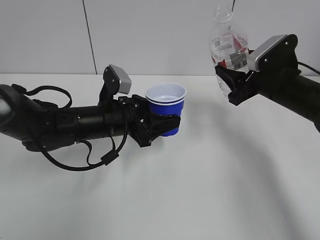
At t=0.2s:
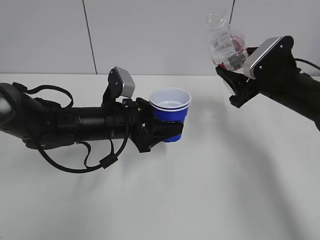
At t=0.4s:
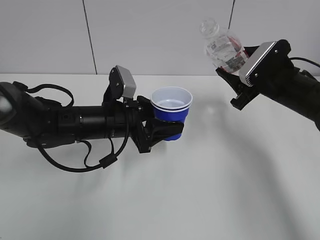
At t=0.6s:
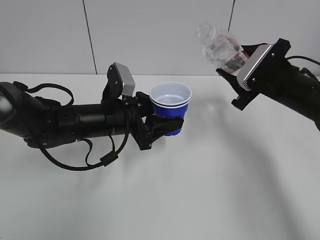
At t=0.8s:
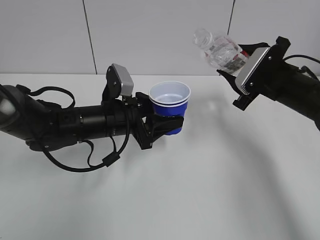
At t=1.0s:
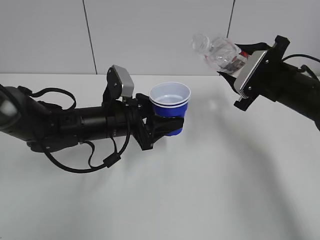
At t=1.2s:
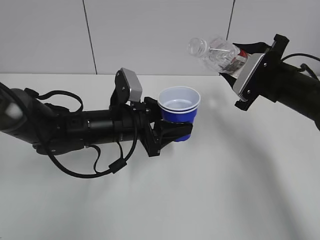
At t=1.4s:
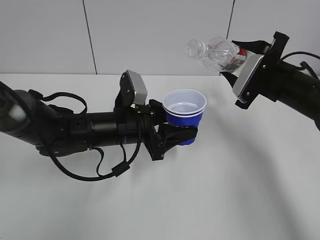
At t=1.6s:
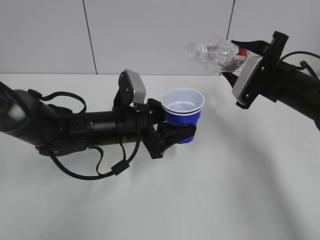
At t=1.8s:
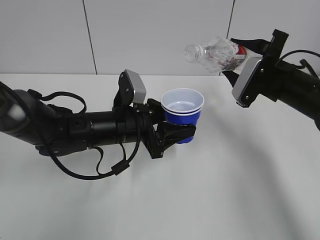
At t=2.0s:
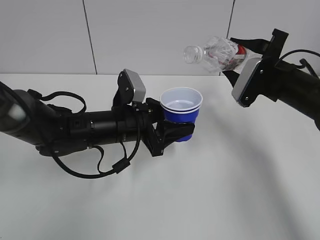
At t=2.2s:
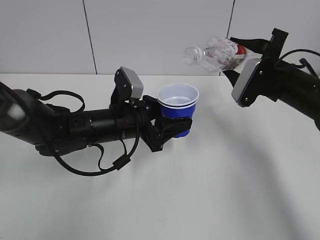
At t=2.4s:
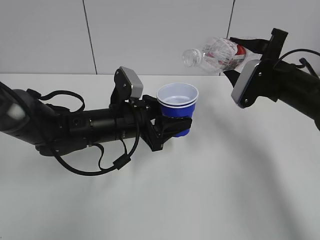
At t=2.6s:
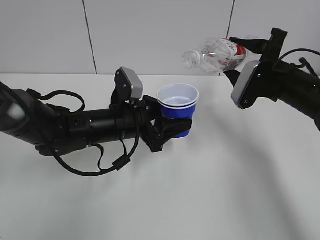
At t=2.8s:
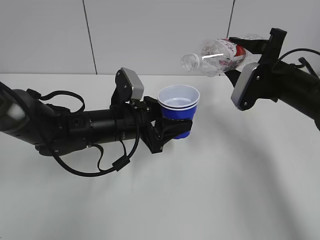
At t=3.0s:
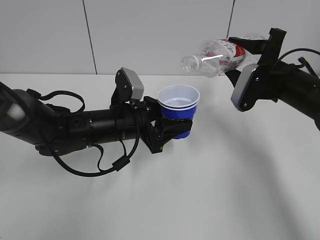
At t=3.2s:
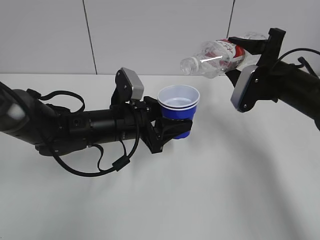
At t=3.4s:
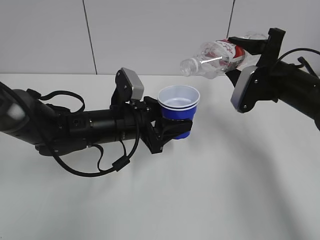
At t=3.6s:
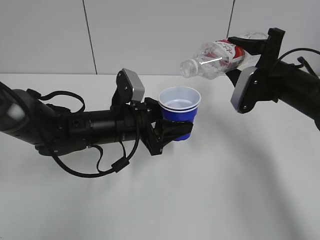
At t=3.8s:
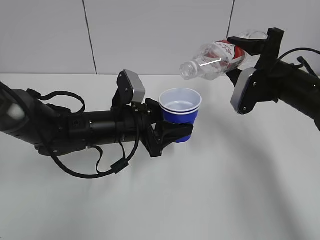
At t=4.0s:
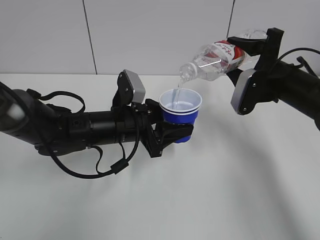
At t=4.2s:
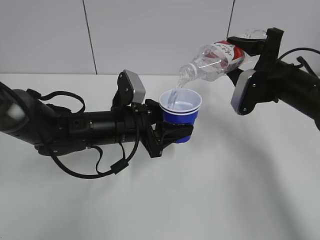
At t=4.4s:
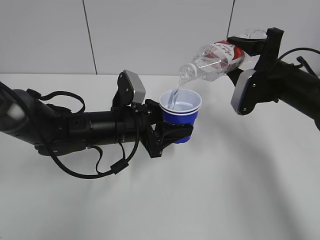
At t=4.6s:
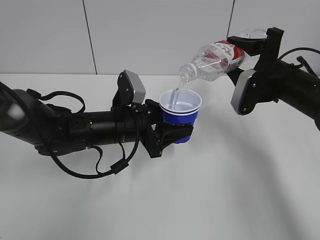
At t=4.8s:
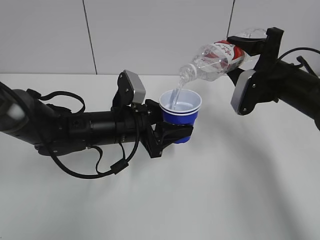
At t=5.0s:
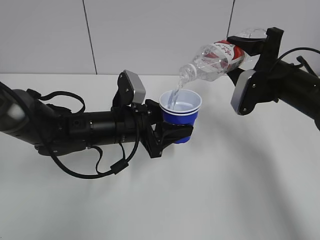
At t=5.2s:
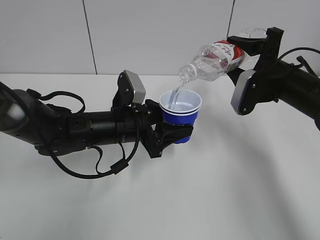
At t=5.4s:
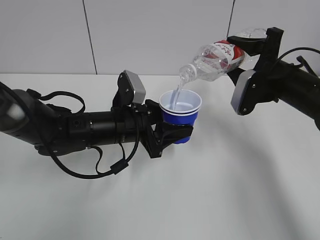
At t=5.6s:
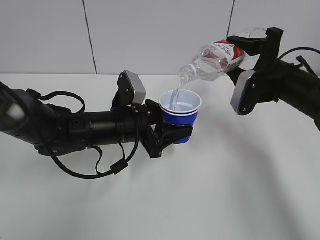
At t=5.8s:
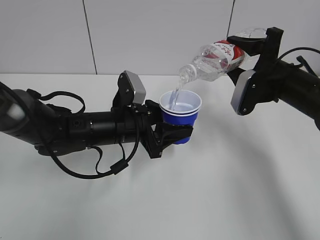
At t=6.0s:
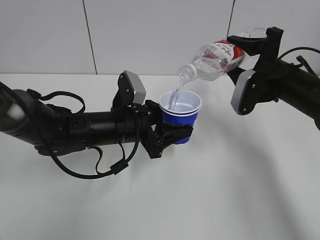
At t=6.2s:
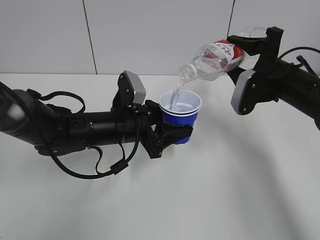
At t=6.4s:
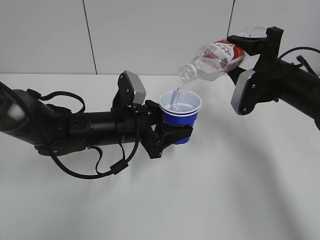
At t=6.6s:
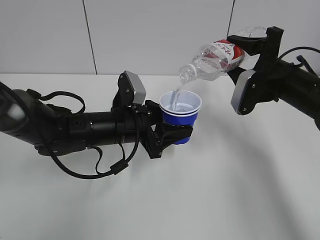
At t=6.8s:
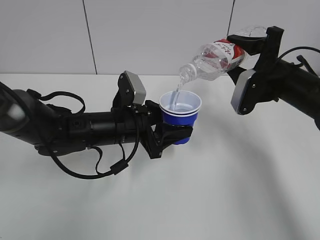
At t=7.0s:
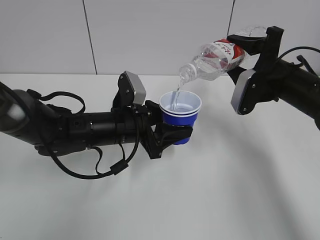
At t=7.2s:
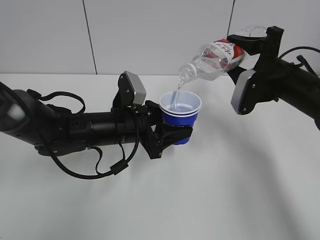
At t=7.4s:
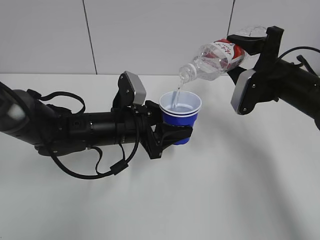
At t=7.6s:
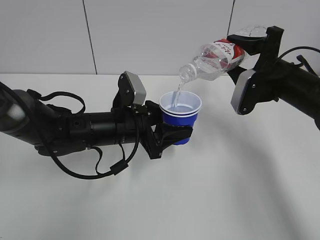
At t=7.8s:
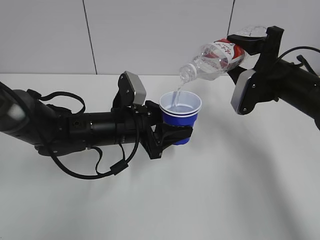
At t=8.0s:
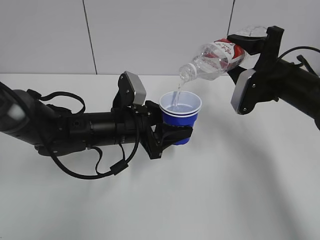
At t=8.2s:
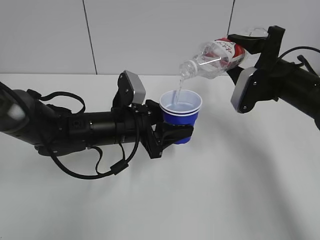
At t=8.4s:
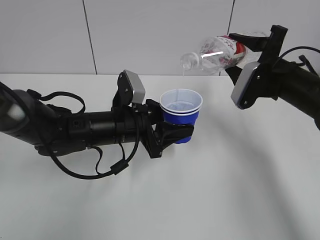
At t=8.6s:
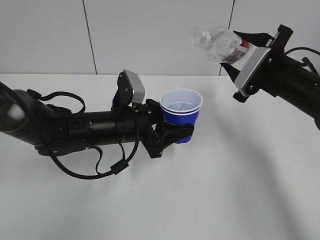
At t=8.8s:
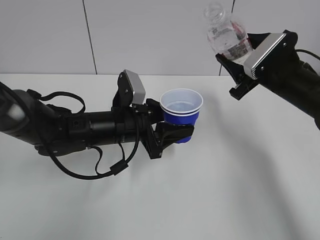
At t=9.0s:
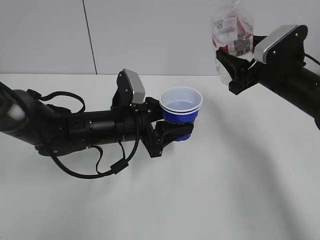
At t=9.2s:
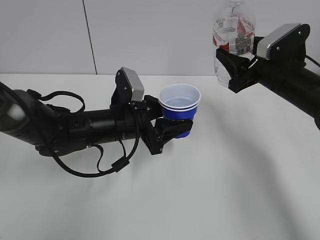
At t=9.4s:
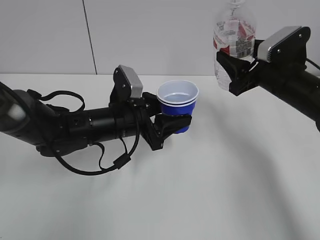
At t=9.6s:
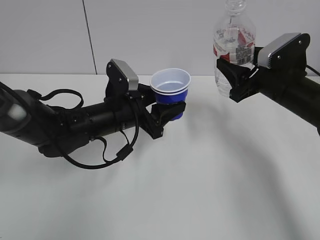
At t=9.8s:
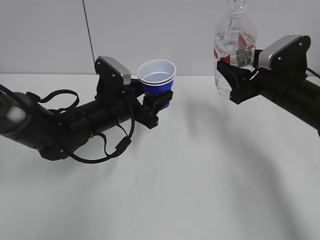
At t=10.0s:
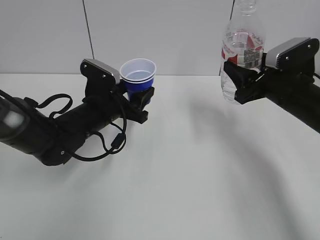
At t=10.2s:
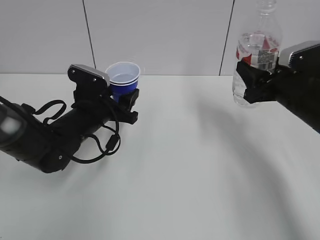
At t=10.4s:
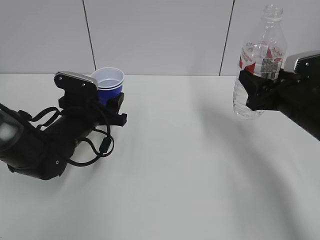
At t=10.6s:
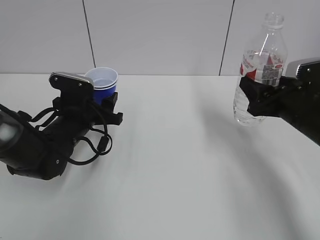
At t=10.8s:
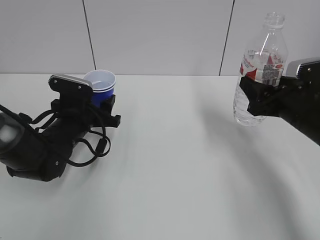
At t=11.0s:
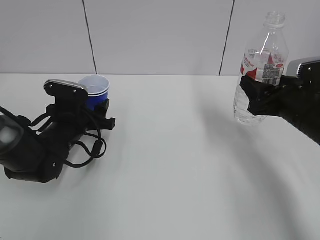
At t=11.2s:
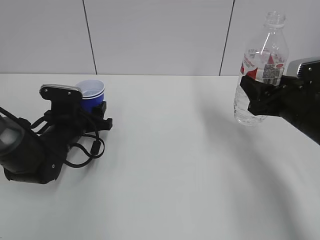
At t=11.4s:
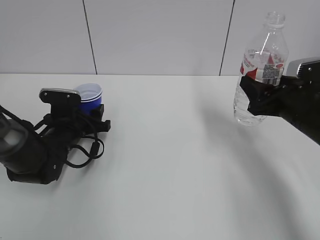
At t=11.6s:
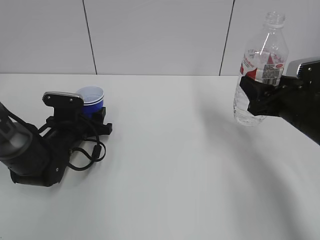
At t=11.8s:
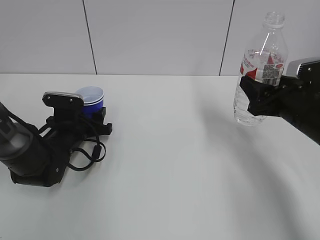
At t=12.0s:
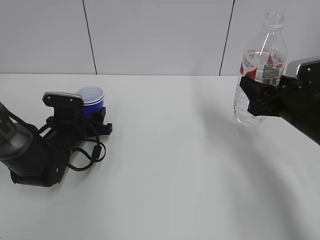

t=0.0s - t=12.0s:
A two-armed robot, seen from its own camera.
Step, t=0.0s - t=3.2s: Lift the paper cup with the left hand.
Step, t=3.4s - t=8.6s: Fill water with the left hand.
Step, t=3.4s - t=8.6s: Pour water with the right hand.
Step, t=8.8s - t=9.0s: Collect water with the right hand.
t=1.6s - t=3.0s: The grippers move only a little.
t=3.0s - t=4.4s: The grippers stay close to where they were, moving slightly.
t=4.4s - t=7.6s: The two grippers keep their place.
t=9.0s - t=10.4s: The left gripper heads to the left, covering roughly 10 cm. Meanwhile the right gripper changes place by about 5 cm.
t=10.4s - t=12.0s: The left gripper goes approximately 5 cm downward.

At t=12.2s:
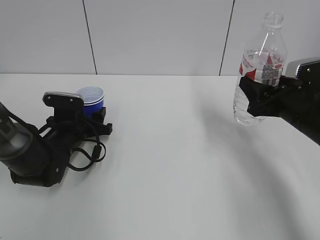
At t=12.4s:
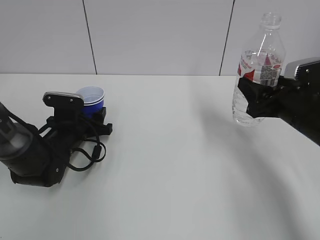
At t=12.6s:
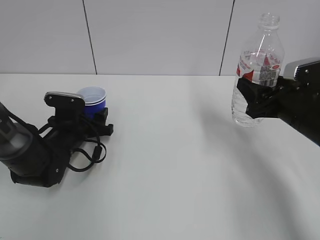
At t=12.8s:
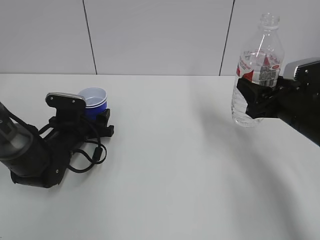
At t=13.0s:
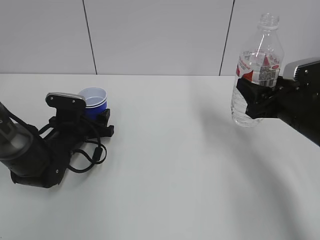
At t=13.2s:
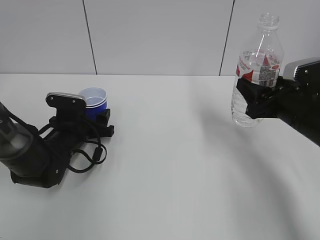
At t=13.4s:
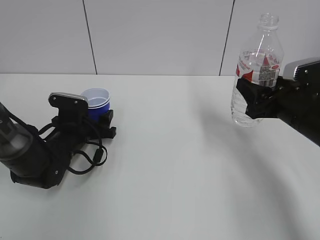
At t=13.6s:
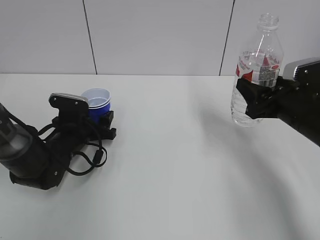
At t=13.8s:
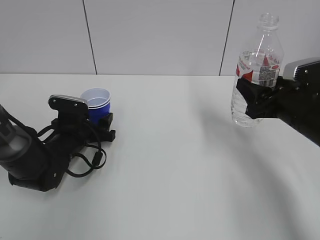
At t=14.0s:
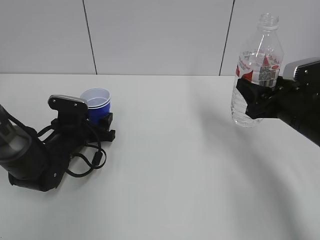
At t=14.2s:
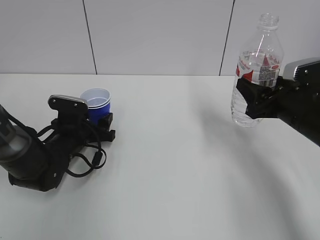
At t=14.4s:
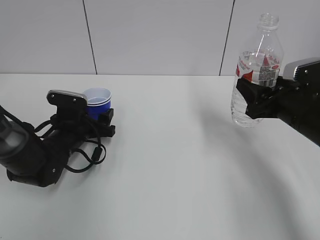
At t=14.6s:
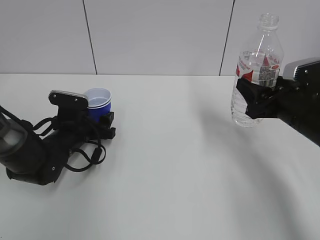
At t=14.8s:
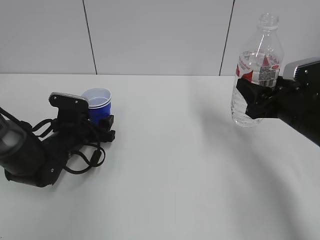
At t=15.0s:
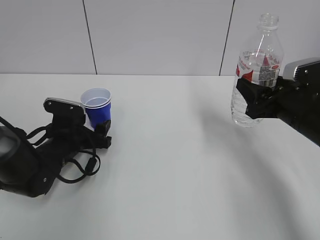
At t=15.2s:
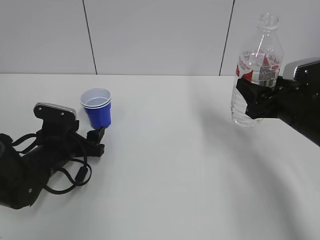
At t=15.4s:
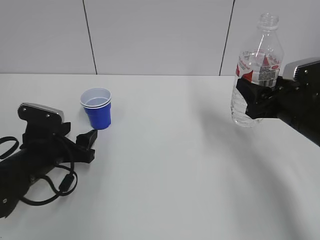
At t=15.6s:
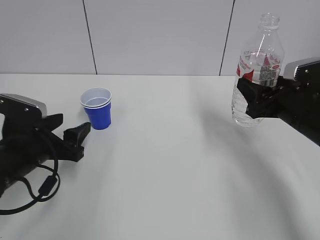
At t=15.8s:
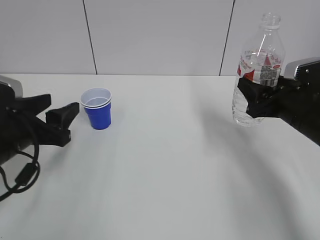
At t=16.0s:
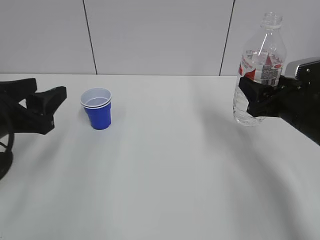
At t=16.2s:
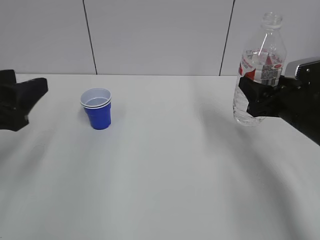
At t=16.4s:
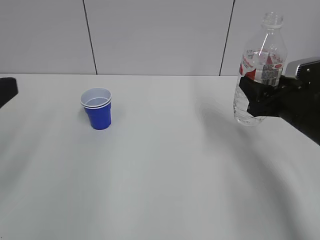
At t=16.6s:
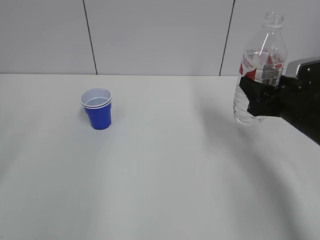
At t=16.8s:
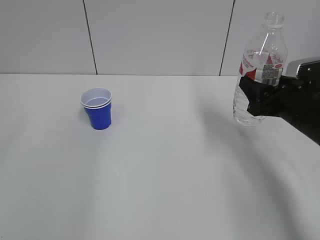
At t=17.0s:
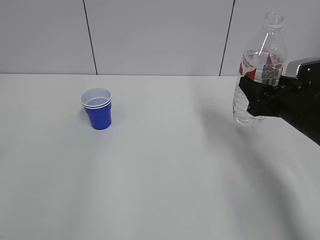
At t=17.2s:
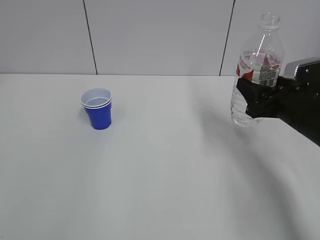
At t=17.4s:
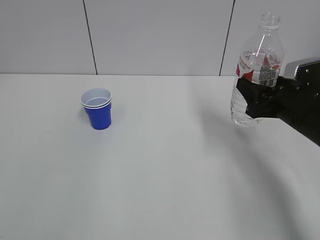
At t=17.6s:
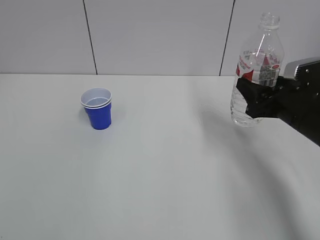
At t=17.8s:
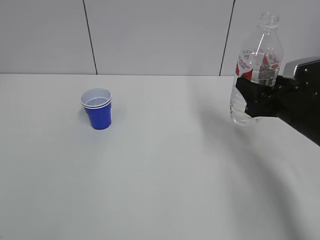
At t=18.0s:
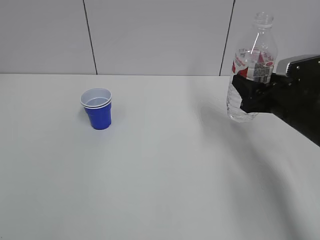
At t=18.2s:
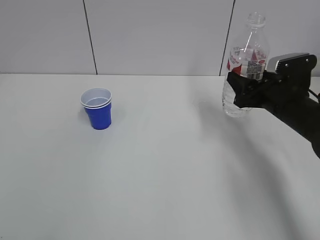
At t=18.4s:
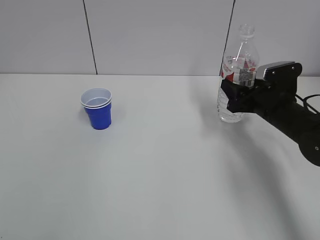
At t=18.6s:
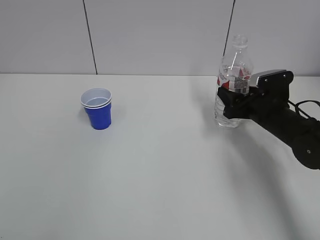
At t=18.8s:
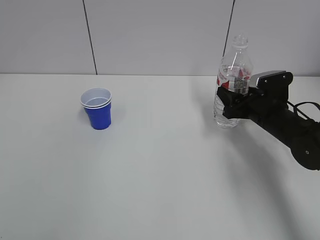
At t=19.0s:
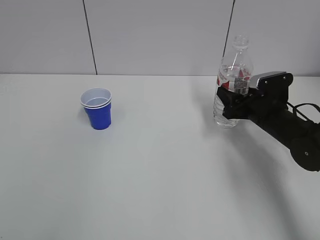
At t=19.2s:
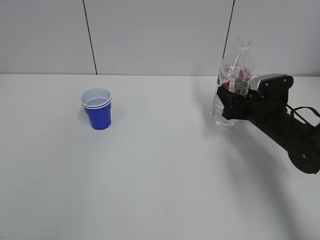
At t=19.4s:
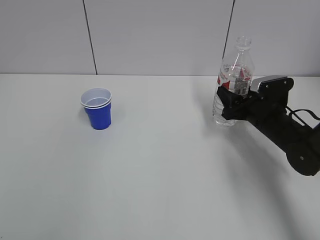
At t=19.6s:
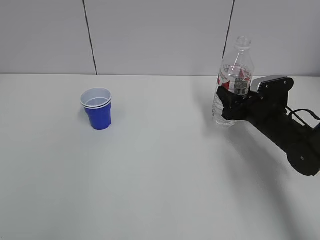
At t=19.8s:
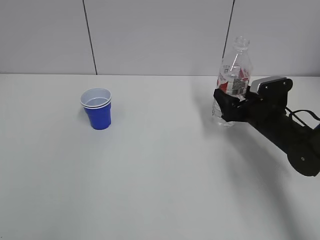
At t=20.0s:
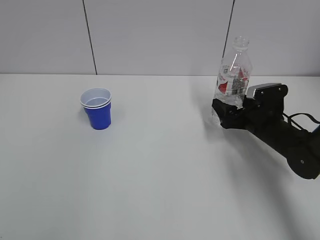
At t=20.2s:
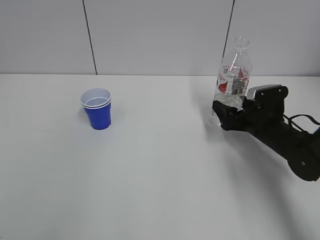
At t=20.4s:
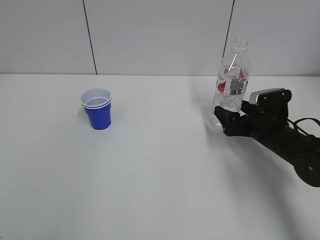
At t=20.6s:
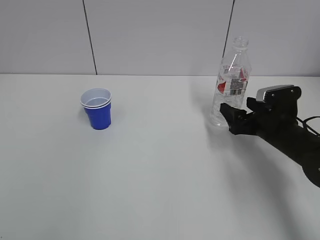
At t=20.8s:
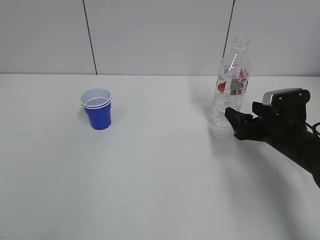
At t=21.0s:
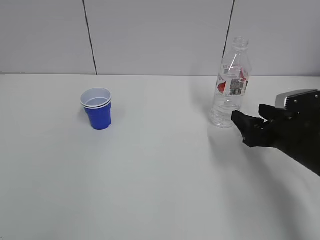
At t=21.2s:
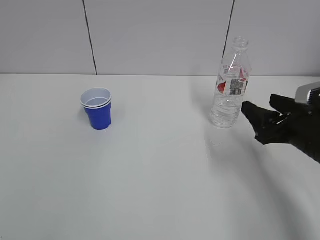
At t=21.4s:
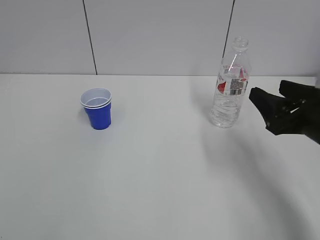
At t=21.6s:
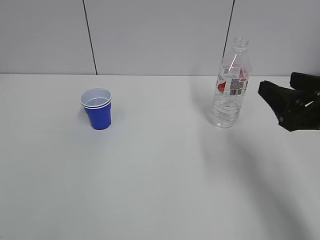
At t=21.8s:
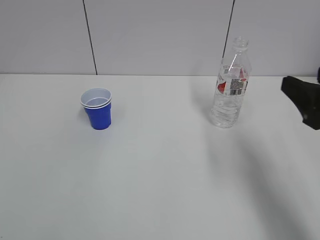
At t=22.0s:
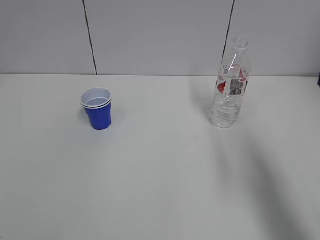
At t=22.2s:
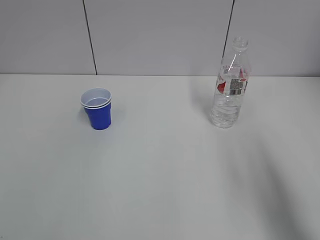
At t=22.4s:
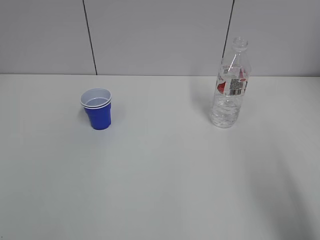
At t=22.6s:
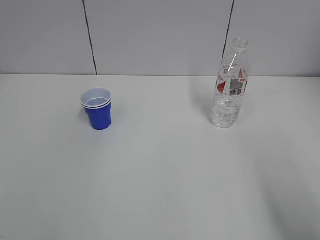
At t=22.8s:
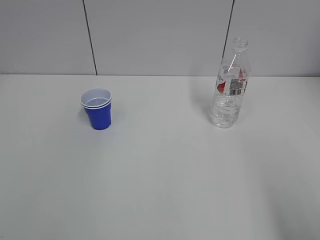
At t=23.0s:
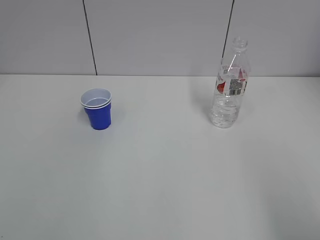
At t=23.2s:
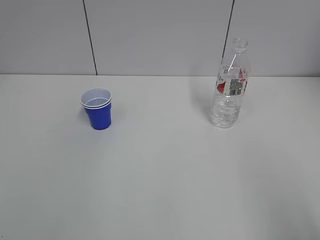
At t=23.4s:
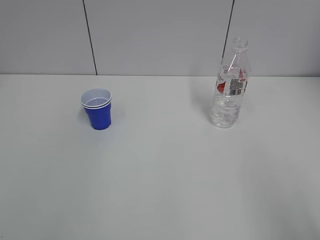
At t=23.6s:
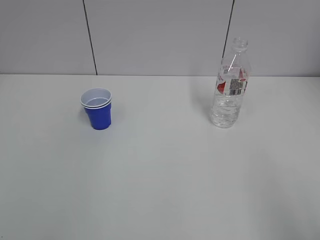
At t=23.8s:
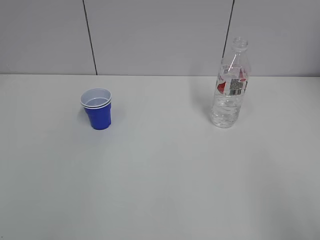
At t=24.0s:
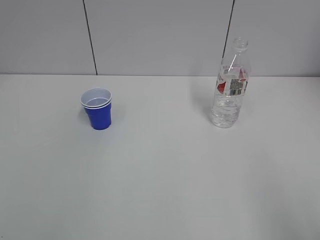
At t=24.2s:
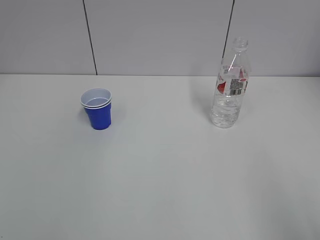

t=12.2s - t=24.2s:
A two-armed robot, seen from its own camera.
Step, t=13.8s - t=20.0s: Place the water bottle with the right hand.
t=12.2s - t=13.8s: The grippers move only a little.
t=13.8s - t=15.2s: The left gripper ends up roughly 5 cm from where it was.
t=15.2s - t=16.6s: The left gripper travels upward and backward by roughly 35 cm.
t=18.2s - t=19.8s: The right gripper heads downward, covering about 5 cm, and opens.
t=19.8s - t=21.2s: The right gripper shifts approximately 15 cm backward and upward.
t=21.2s - t=22.6s: The right gripper shifts approximately 25 cm backward and upward.
